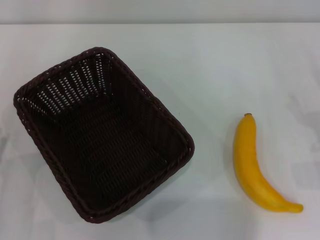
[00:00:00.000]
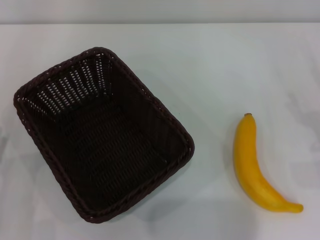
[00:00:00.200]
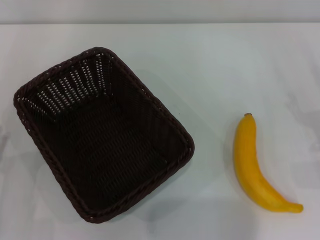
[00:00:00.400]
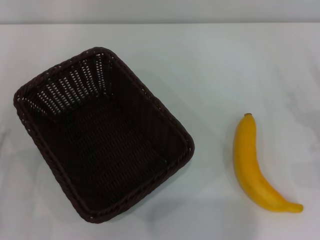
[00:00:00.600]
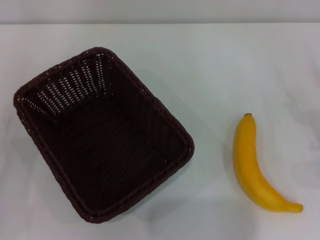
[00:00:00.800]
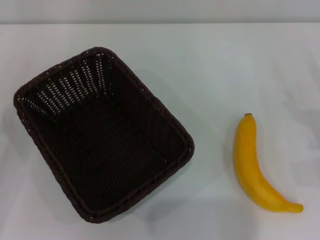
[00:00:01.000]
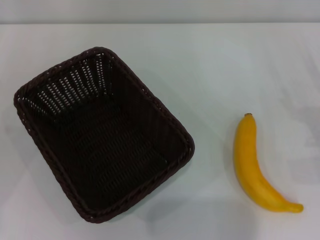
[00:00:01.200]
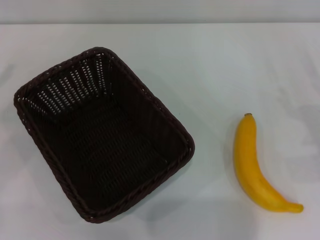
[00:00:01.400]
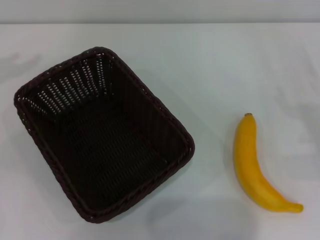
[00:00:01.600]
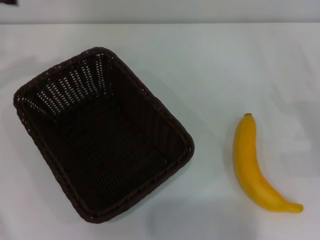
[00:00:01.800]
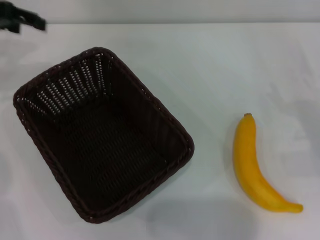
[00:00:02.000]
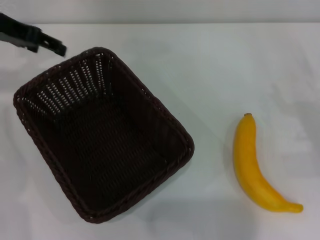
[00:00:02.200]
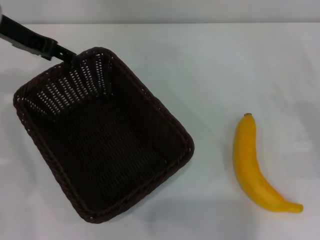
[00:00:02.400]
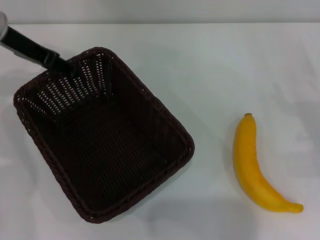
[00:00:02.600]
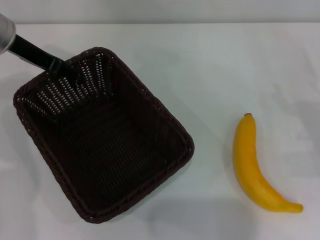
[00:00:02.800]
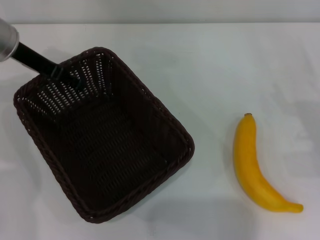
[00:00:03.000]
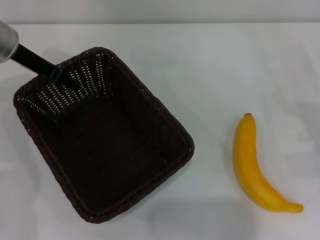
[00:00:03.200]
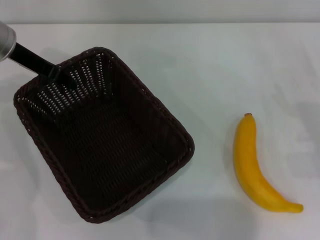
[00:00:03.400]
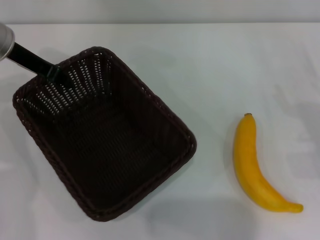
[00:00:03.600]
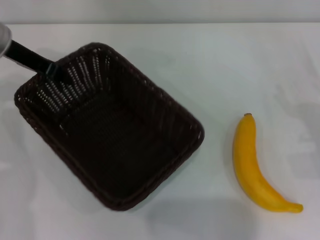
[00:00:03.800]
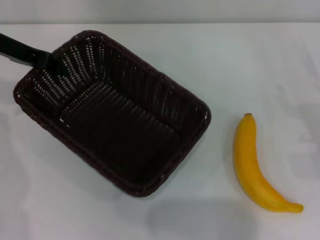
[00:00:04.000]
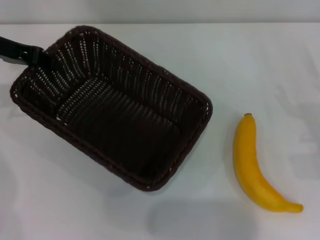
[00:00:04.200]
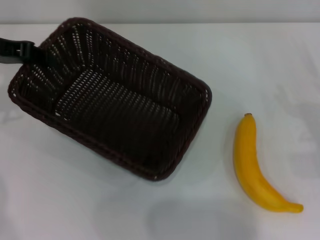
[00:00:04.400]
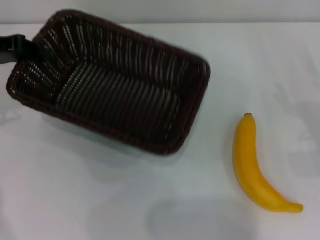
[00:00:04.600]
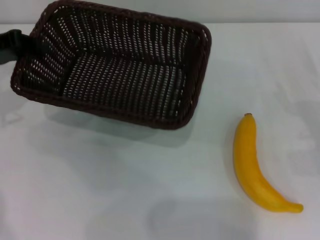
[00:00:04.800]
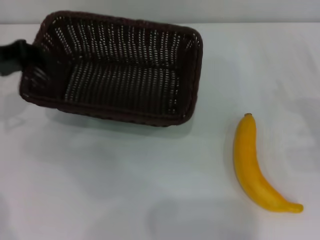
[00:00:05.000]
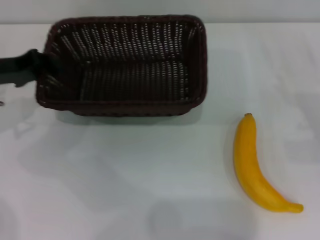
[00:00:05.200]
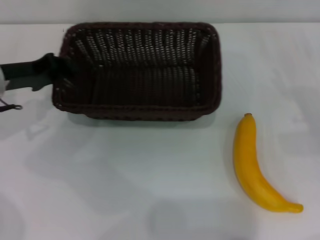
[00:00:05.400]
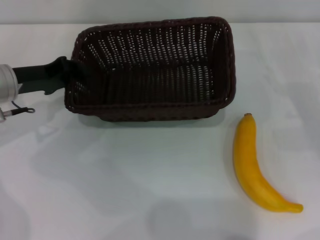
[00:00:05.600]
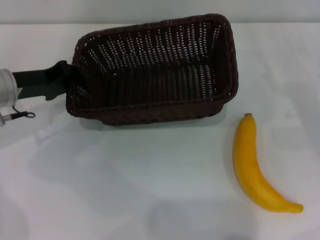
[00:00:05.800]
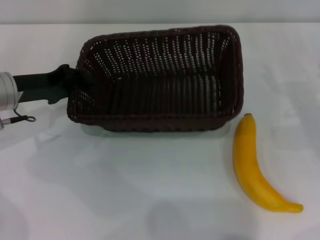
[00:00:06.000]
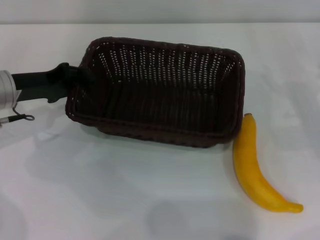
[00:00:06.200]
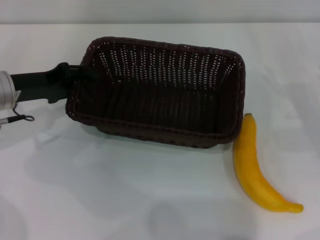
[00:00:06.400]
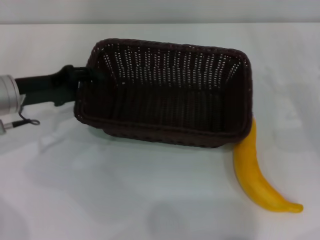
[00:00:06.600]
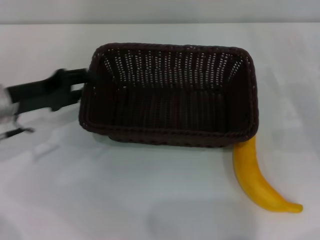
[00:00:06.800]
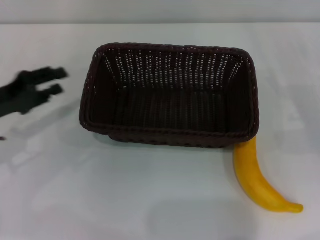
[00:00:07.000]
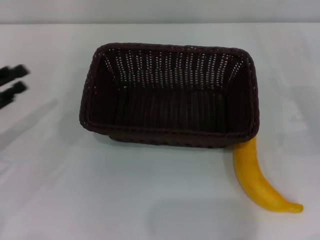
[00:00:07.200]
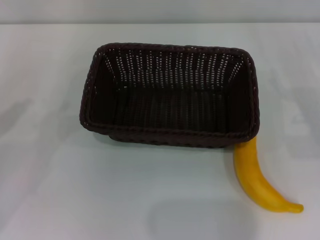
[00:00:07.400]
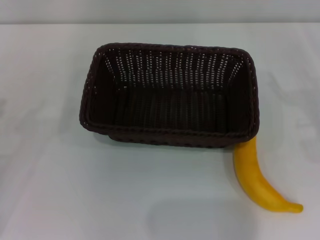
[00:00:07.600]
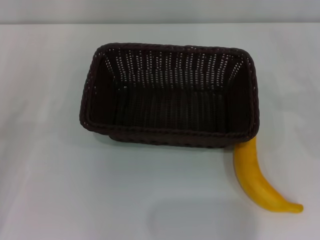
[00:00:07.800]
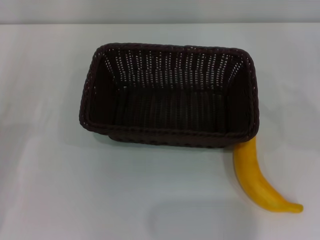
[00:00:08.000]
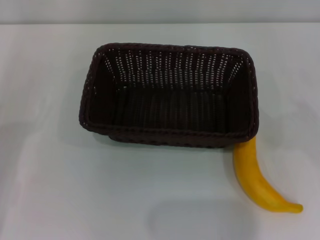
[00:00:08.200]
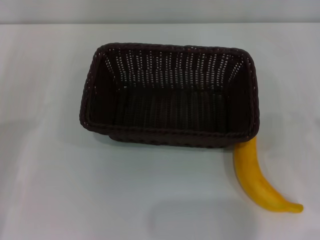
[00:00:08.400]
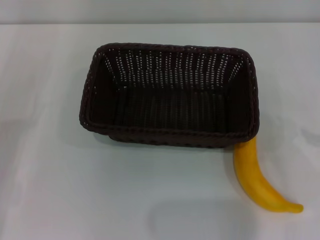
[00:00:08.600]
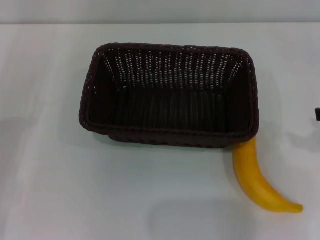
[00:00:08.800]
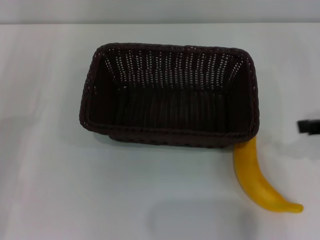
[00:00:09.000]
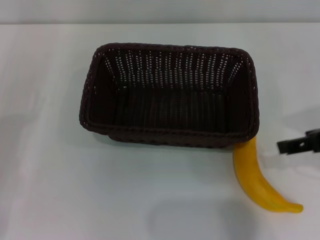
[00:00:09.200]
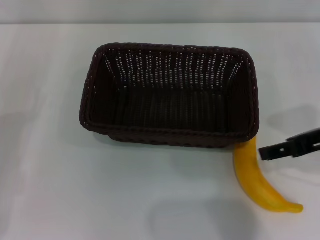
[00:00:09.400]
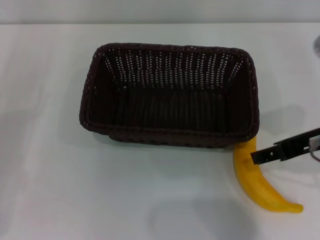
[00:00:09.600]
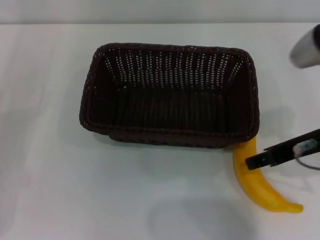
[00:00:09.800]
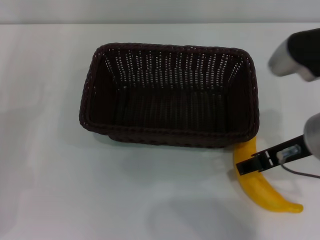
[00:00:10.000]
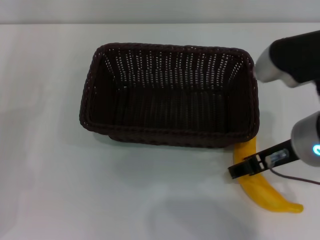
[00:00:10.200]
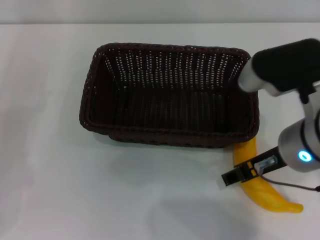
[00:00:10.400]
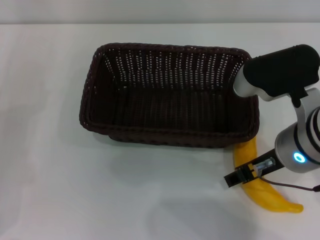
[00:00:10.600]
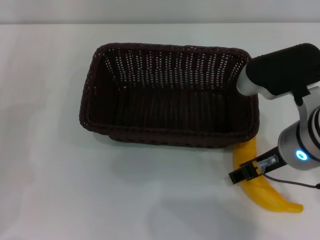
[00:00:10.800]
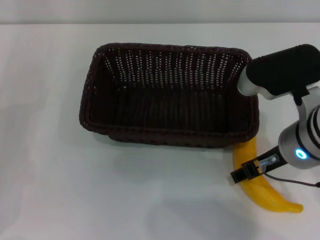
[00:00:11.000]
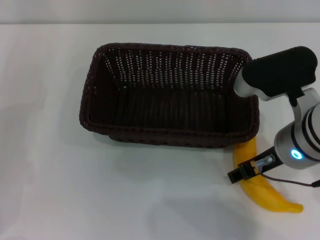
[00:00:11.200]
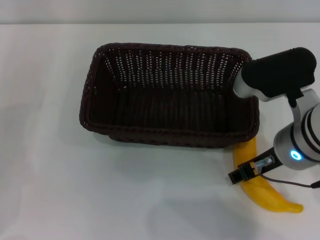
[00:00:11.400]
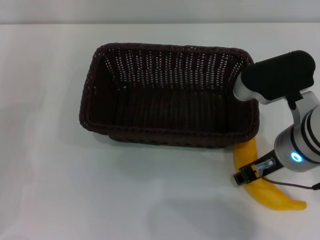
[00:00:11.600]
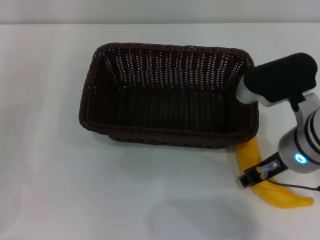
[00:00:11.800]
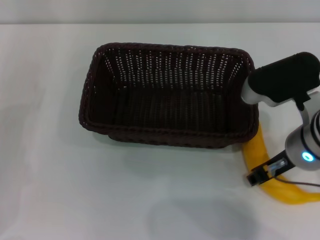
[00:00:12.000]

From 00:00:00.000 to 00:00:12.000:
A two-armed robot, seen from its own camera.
Step, from 00:00:00.000 to 00:00:04.400: Pick up the dark basket with the left gripper.
Step, from 00:00:04.800 to 00:00:07.000: Place the dark basket in the center of view with the left gripper.
From 00:00:01.600 to 00:00:03.000: The left gripper heads to the right, covering approximately 15 cm.
From 00:00:03.000 to 00:00:04.400: The left gripper moves to the left, roughly 5 cm, and closes its fingers.
From 00:00:04.400 to 00:00:06.000: The right gripper changes place by about 5 cm, while the left gripper is displaced downward by roughly 10 cm.
From 00:00:06.000 to 00:00:07.600: The right gripper changes place by about 5 cm. The left gripper travels backward and to the left by roughly 20 cm, and opens up.
From 00:00:07.600 to 00:00:09.000: The right gripper moves upward and to the left, some 15 cm.
From 00:00:09.000 to 00:00:10.400: The right gripper shifts approximately 15 cm to the left.
From 00:00:10.400 to 00:00:12.000: The right gripper closes.

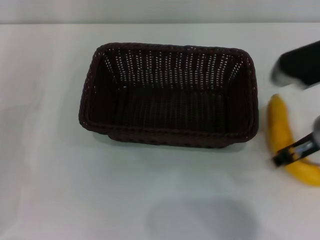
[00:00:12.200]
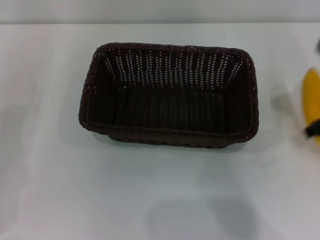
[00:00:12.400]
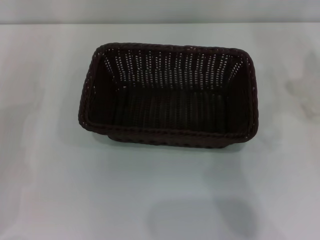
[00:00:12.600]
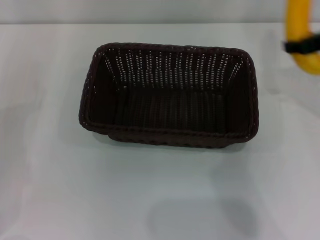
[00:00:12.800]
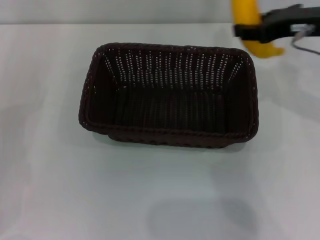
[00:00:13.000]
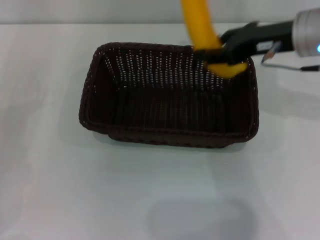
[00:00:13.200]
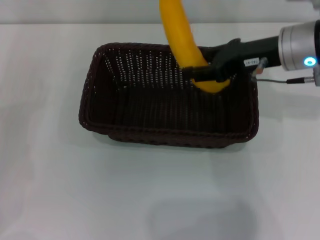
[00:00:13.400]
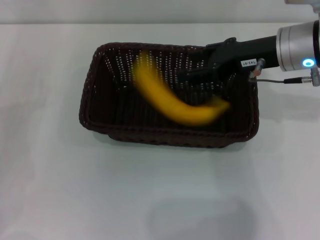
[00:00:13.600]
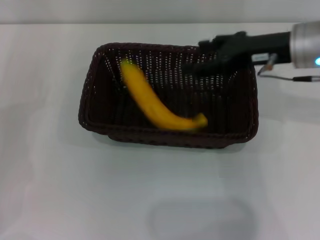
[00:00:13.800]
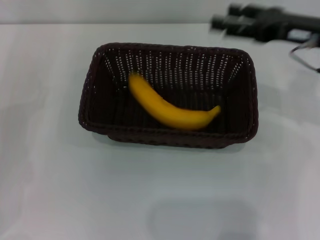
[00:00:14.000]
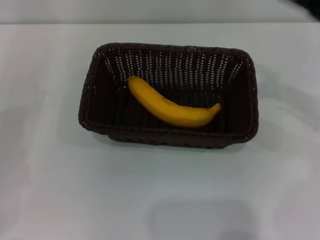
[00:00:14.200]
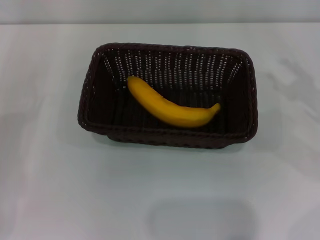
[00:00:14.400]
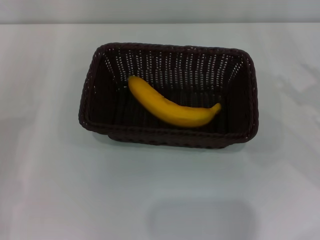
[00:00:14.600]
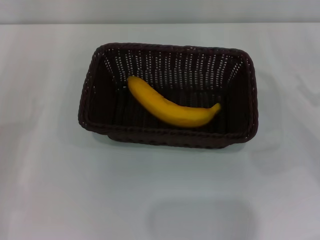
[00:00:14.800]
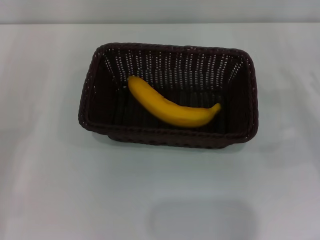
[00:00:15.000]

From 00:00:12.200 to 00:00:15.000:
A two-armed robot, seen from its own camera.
Step, from 00:00:12.400 to 00:00:13.800: Place the banana into the dark basket with the right gripper.
From 00:00:12.200 to 00:00:13.600: The right gripper moves forward, approximately 10 cm, and reaches some 10 cm to the right, then returns.
From 00:00:13.600 to 00:00:15.000: The right gripper moves to the right, downward and backward, some 25 cm, and opens its fingers. The left gripper travels backward by about 5 cm.
